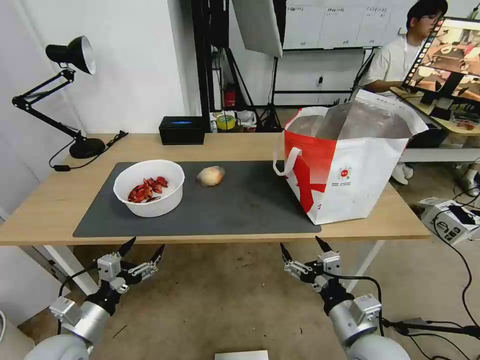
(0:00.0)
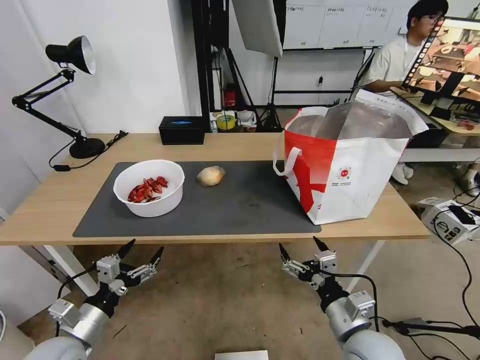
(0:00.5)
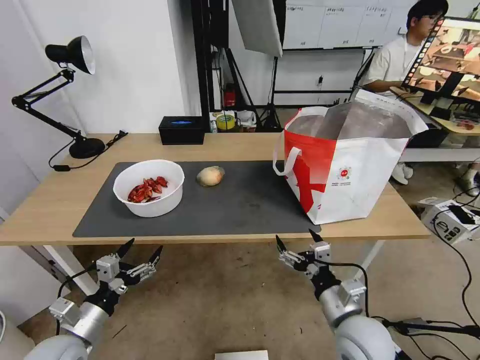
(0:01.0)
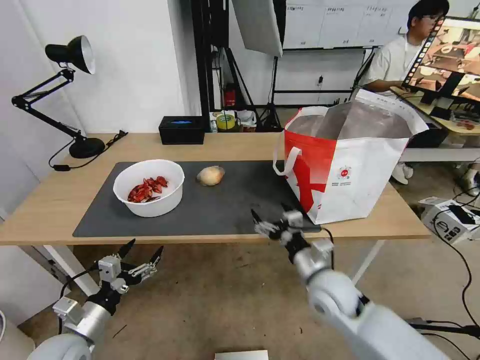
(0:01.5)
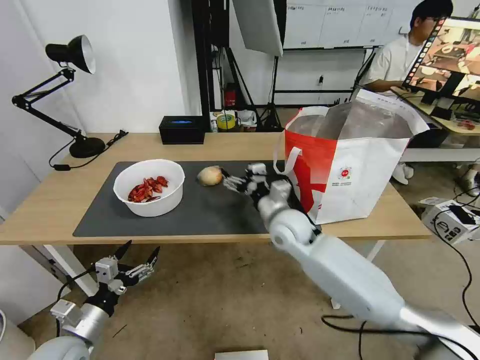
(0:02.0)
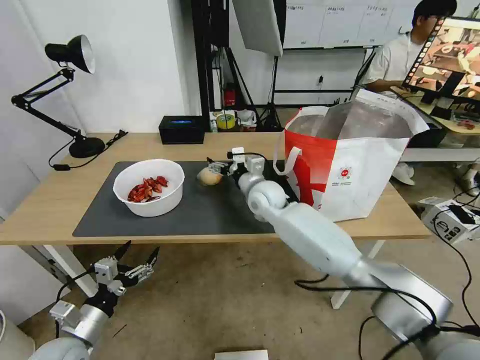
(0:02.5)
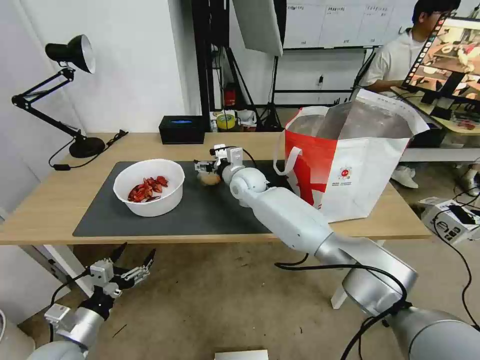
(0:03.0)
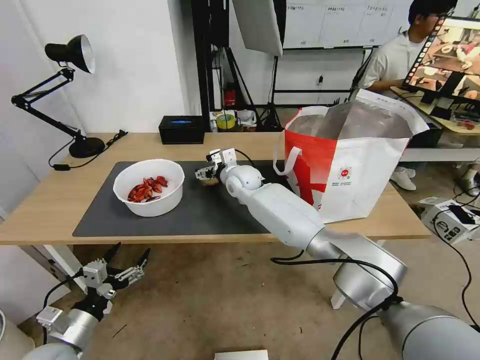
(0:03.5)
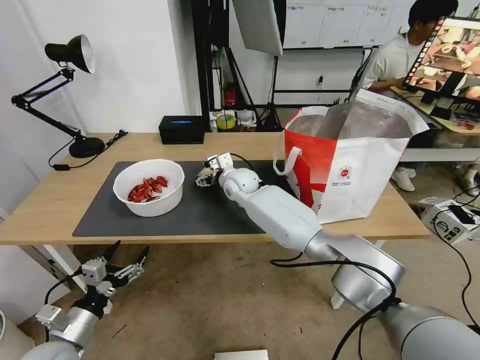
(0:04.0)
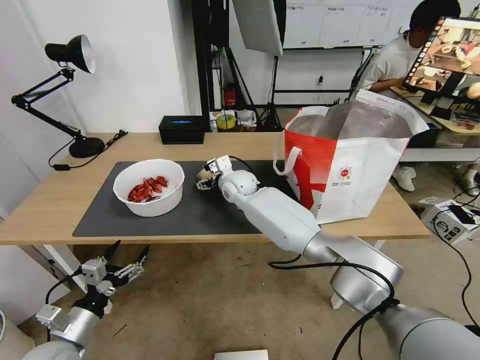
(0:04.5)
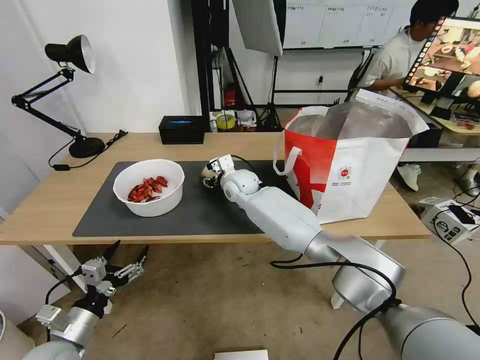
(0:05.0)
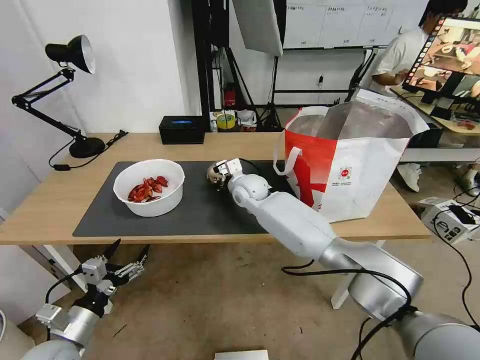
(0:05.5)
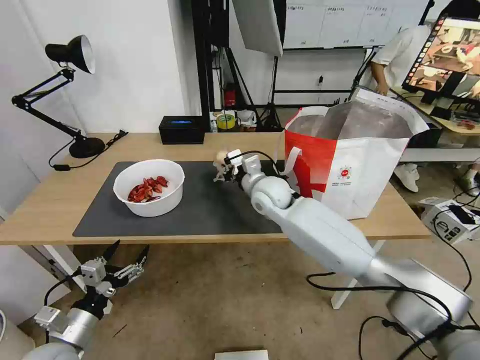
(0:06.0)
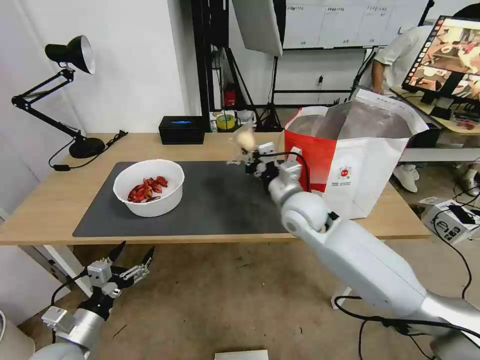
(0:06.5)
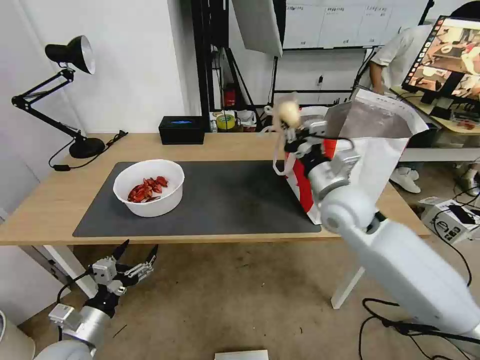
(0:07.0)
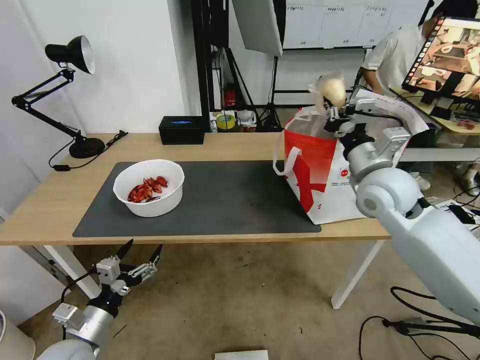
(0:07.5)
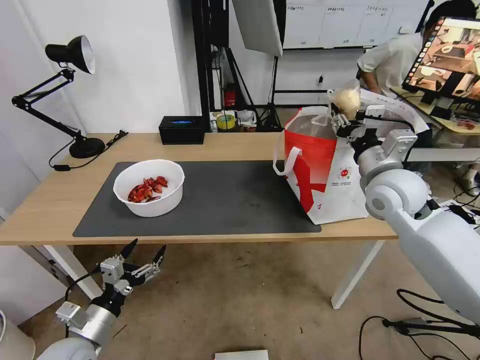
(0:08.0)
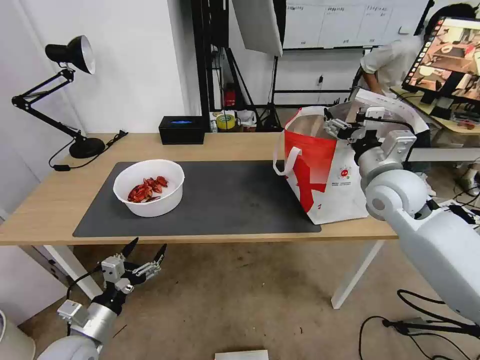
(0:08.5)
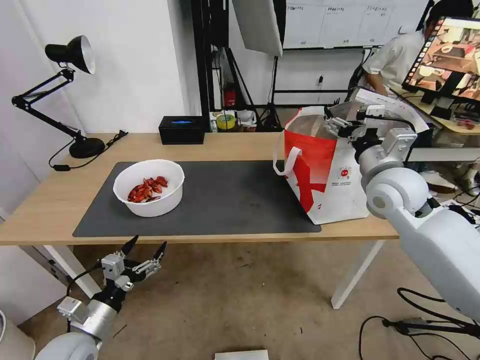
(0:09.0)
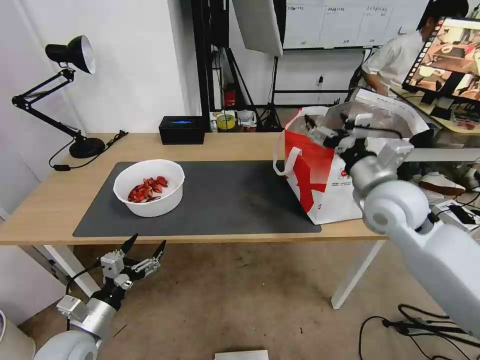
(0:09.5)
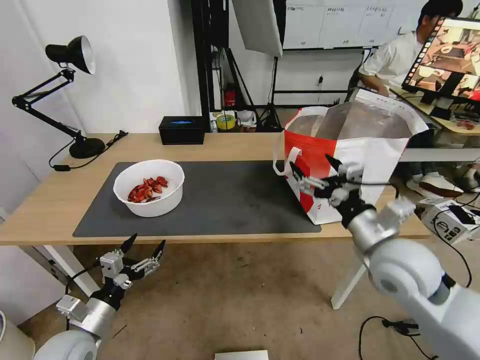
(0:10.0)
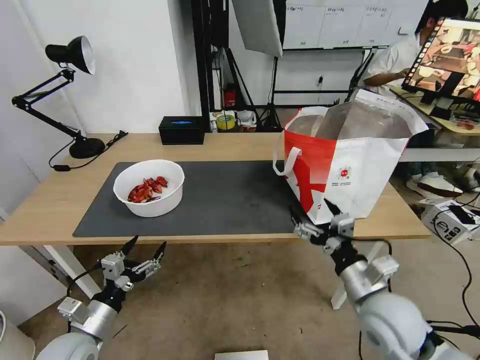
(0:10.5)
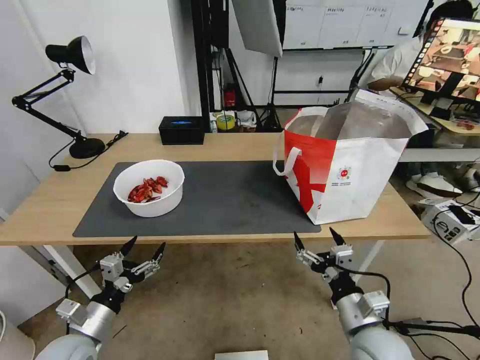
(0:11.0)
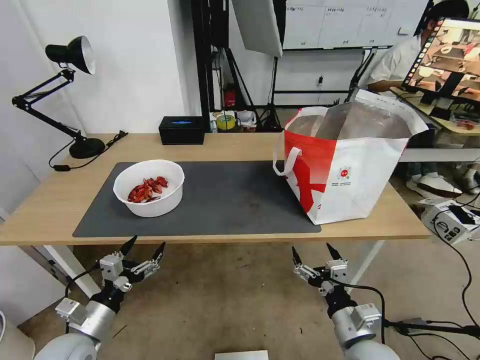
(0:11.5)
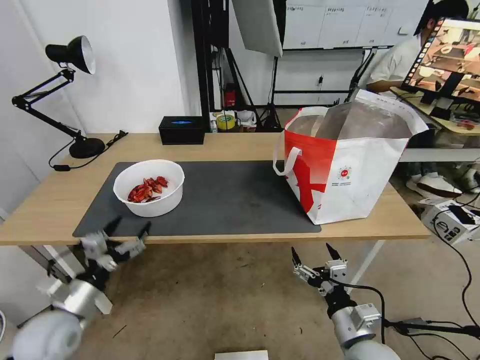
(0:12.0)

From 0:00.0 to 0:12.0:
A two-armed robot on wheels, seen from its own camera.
Task of the whole recording: Pick up the trash from the table and place it into the takeout bag.
From 0:00.0 to 0:02.0: The right gripper goes approximately 30 cm forward and to the left.
From 0:02.0 to 0:04.0: The right gripper moves forward and to the left, some 20 cm.
From 0:04.0 to 0:06.0: The right gripper heads backward and to the right, covering approximately 10 cm, and closes up.
From 0:06.0 to 0:08.0: The right gripper is displaced to the right and upward by approximately 25 cm, and opens up.
From 0:08.0 to 0:10.0: The right gripper goes roughly 10 cm backward, and opens its fingers.
From 0:10.0 to 0:12.0: The right gripper travels downward and backward by approximately 20 cm, while the left gripper changes place by about 5 cm.

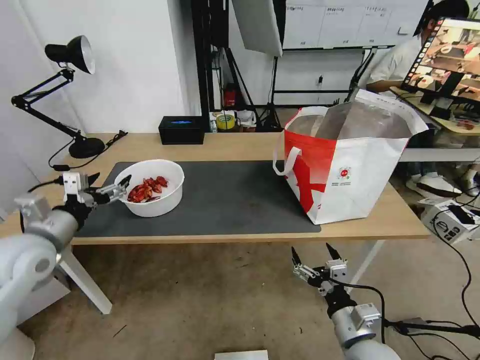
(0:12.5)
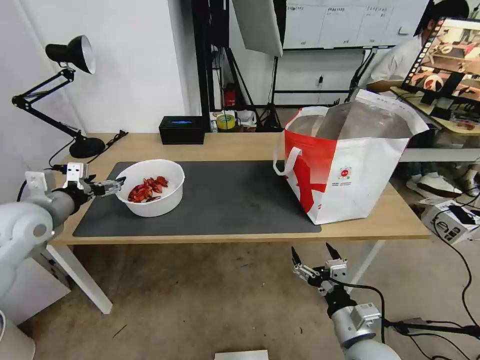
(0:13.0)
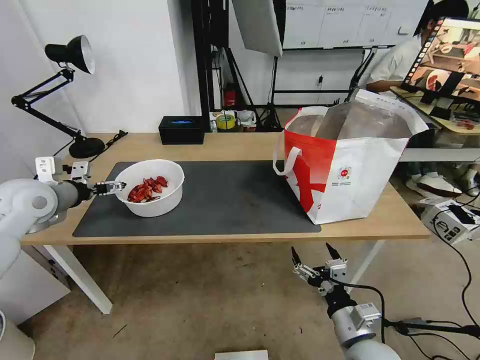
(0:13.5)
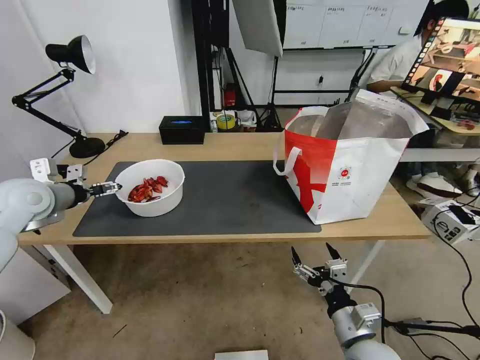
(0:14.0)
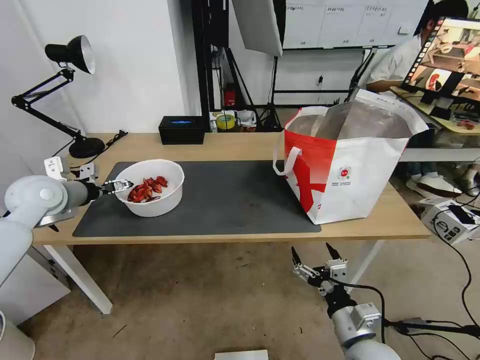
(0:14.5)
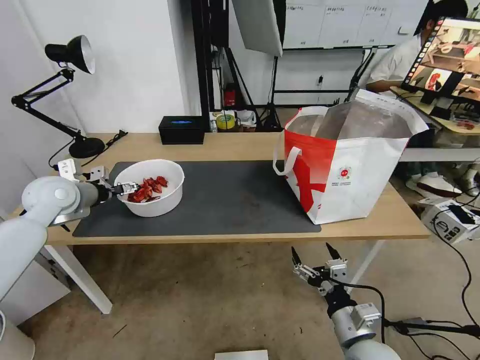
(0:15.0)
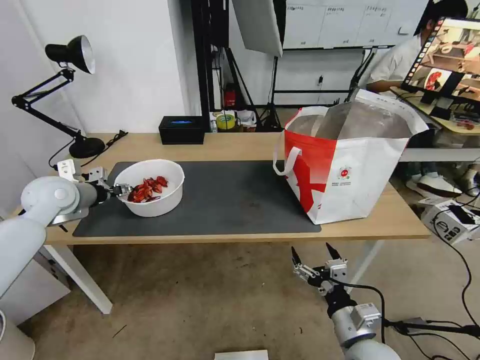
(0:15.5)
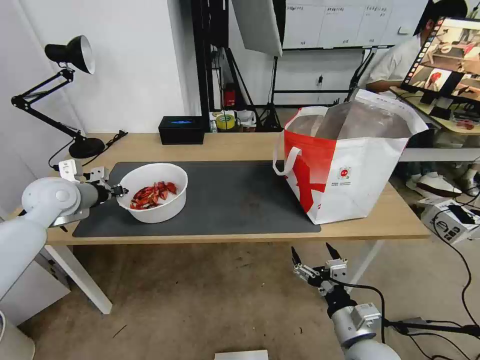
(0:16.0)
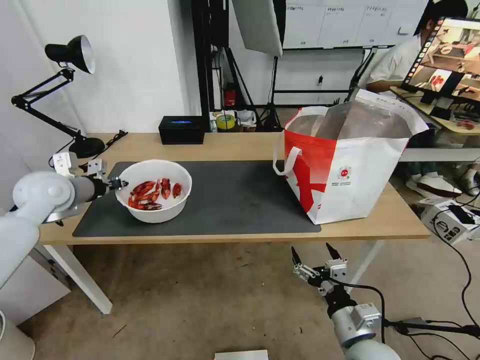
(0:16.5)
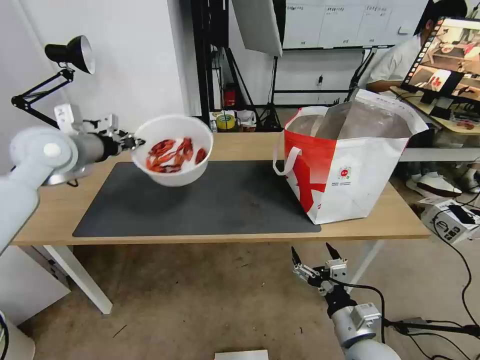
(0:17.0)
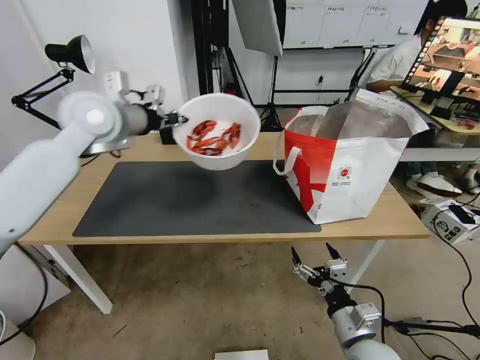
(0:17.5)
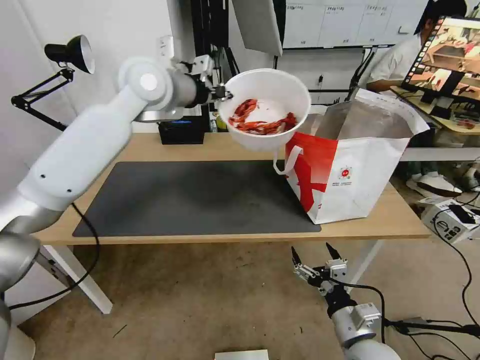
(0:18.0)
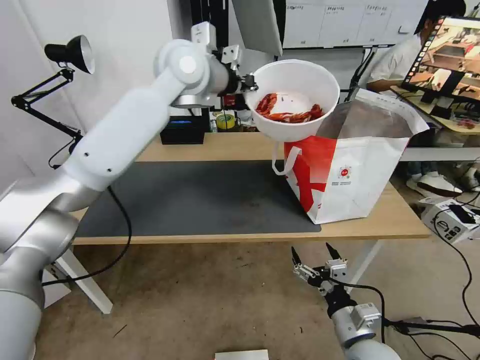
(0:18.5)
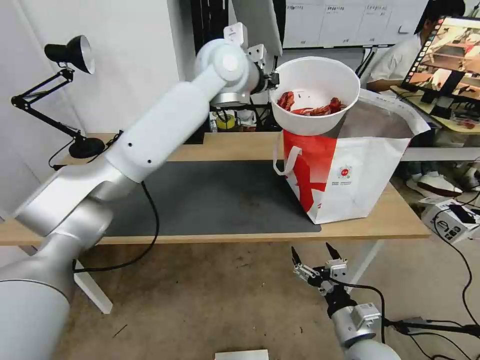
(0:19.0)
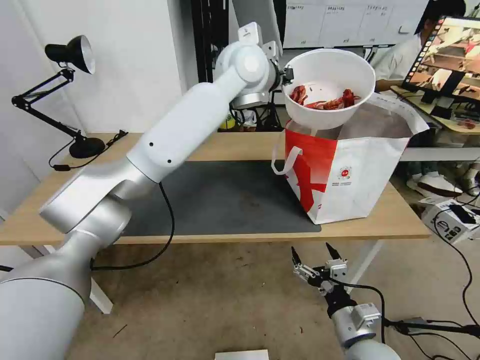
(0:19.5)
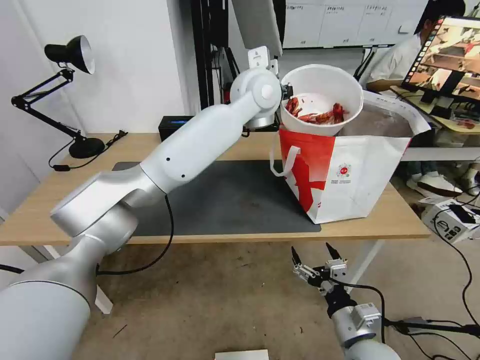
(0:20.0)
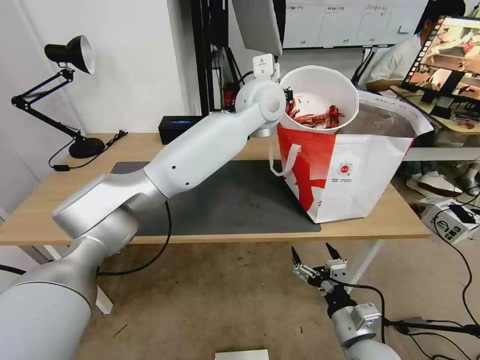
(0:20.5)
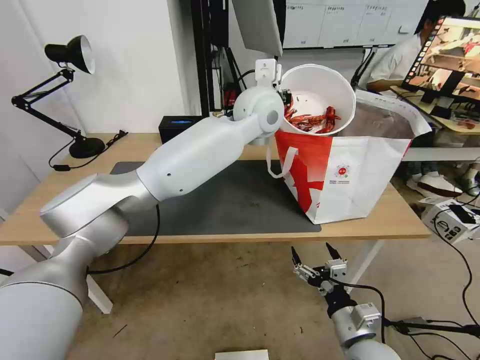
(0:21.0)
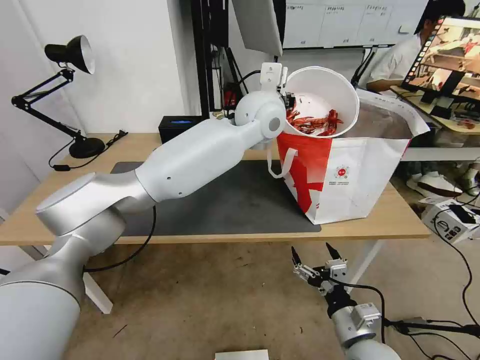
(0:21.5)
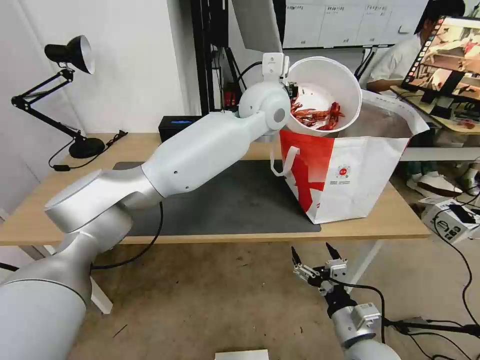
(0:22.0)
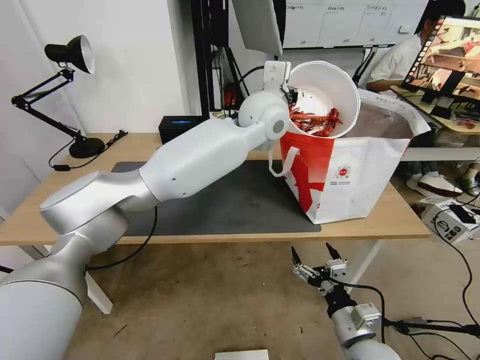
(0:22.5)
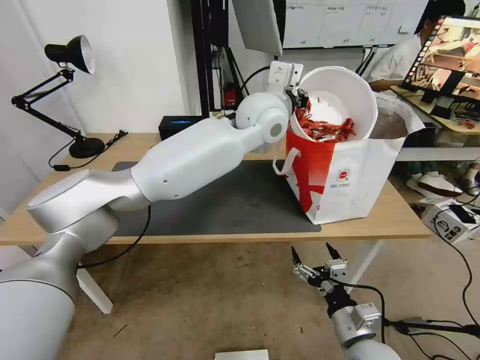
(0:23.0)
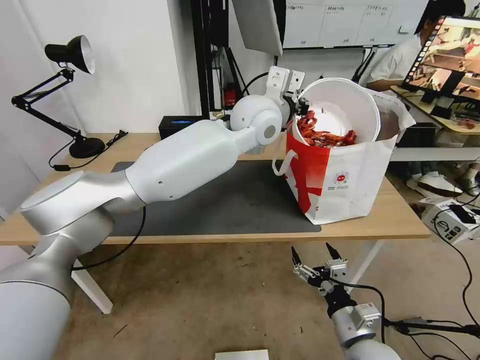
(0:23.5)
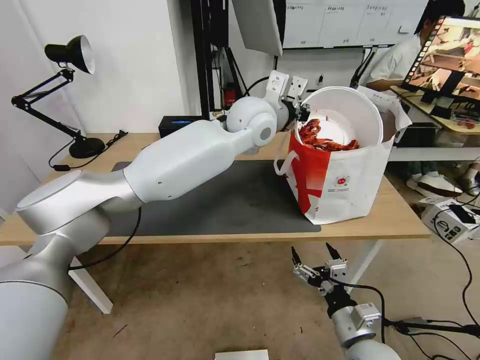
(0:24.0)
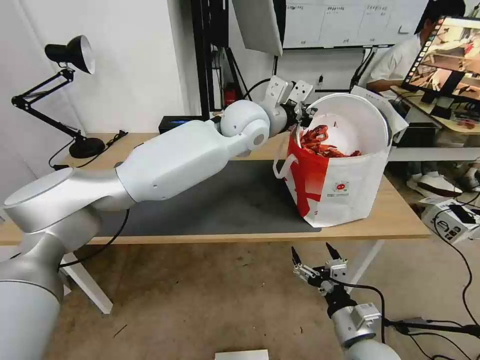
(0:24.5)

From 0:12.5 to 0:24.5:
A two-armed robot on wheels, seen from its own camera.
Task of the whole recording: Pick up the trash from the table and place it into the takeout bag.
From 0:12.5 to 0:14.5: The left gripper goes approximately 10 cm forward.
From 0:14.5 to 0:16.5: The left gripper closes.
From 0:16.5 to 0:18.5: The left gripper goes some 35 cm to the right and upward.
From 0:18.5 to 0:20.5: The left gripper moves to the right and downward, roughly 15 cm.
From 0:20.5 to 0:22.5: The grippers stay close to where they were, moving slightly.

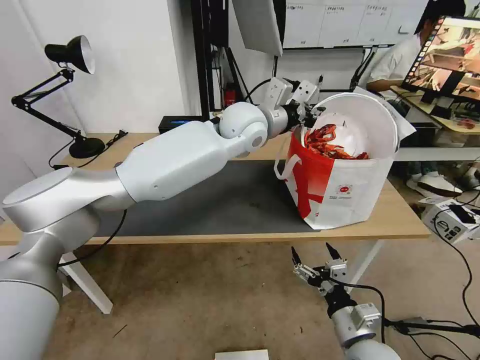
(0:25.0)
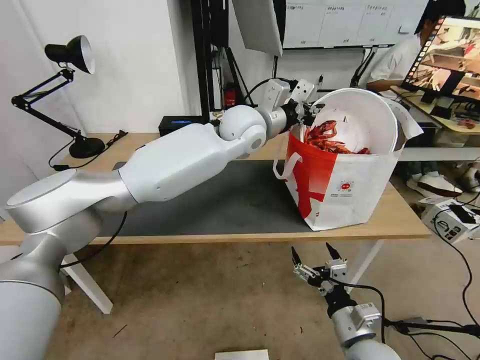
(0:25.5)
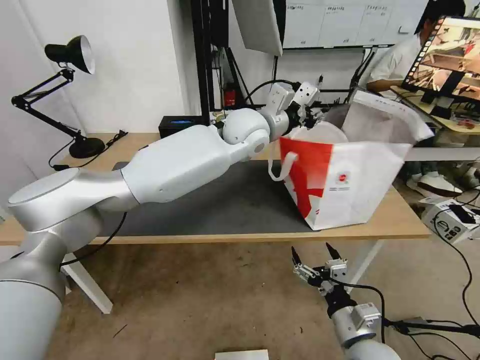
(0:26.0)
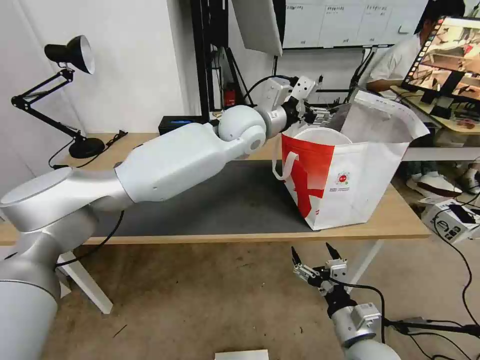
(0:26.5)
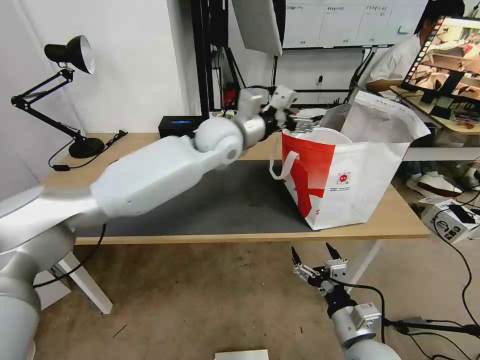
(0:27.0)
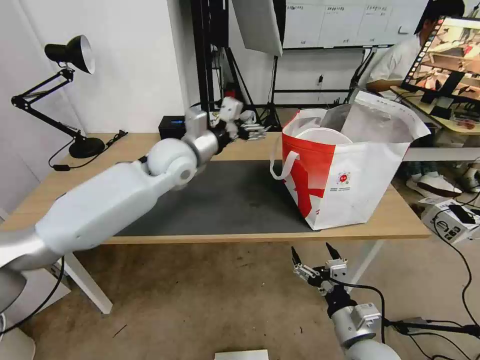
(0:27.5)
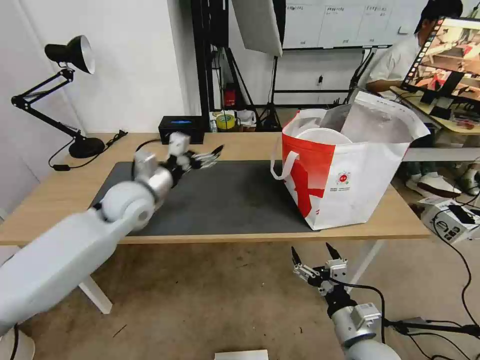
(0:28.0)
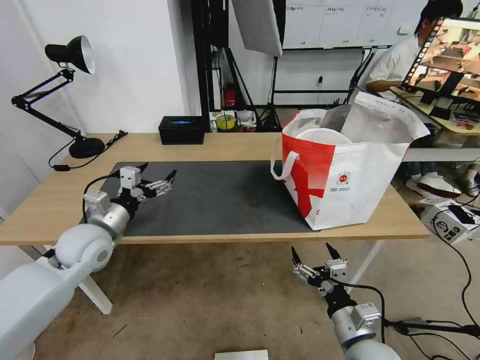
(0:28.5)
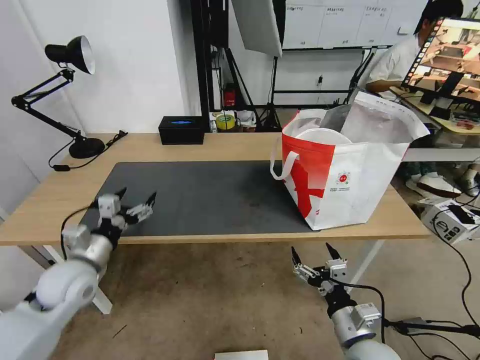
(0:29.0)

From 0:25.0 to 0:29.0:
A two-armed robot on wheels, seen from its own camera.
Task of the whole recording: Pick up the trash from the table and place it into the takeout bag.
From 0:25.0 to 0:27.0: The left gripper travels to the left by roughly 5 cm, and opens up.
From 0:27.0 to 0:29.0: The left gripper goes some 40 cm to the left, backward and downward.
